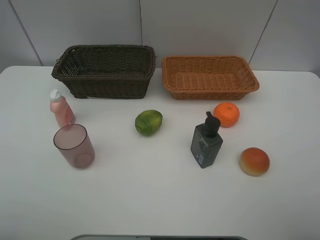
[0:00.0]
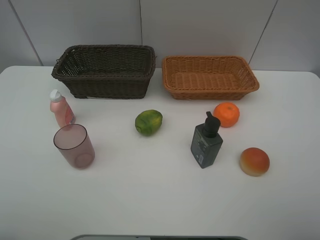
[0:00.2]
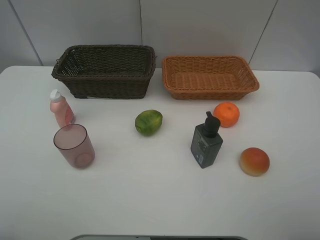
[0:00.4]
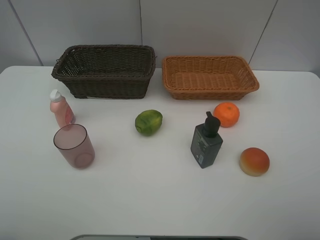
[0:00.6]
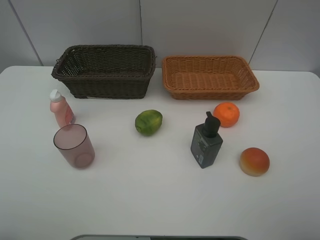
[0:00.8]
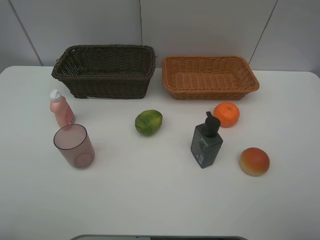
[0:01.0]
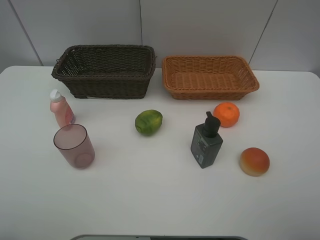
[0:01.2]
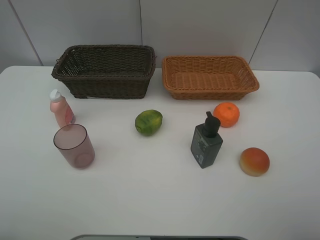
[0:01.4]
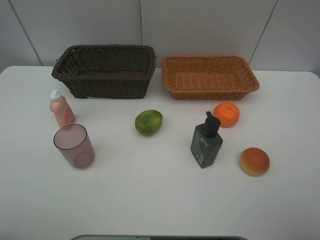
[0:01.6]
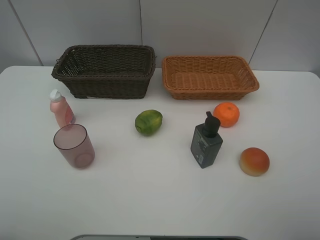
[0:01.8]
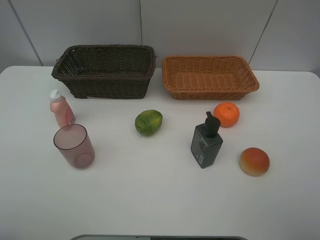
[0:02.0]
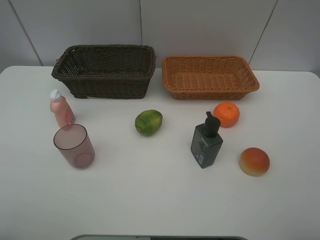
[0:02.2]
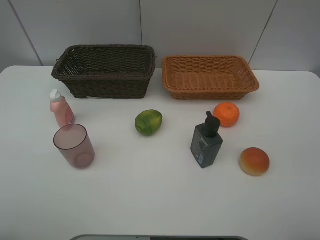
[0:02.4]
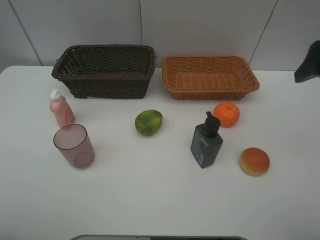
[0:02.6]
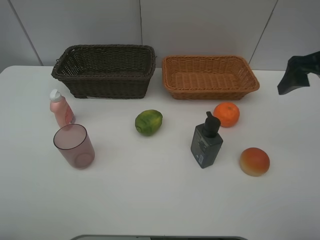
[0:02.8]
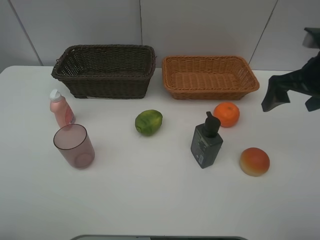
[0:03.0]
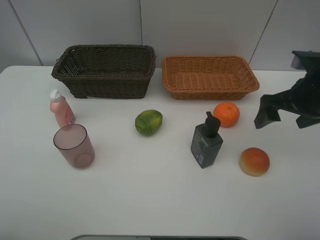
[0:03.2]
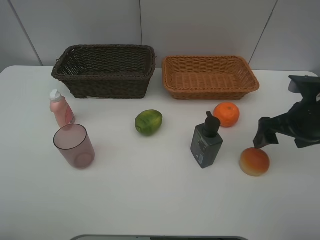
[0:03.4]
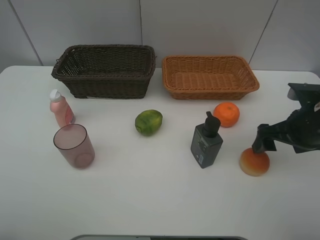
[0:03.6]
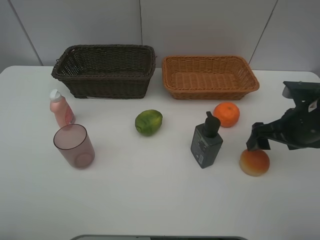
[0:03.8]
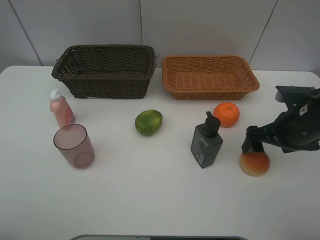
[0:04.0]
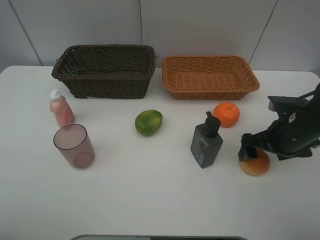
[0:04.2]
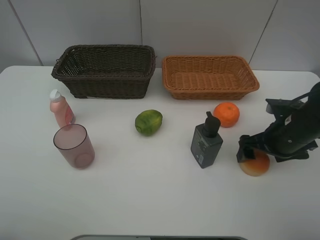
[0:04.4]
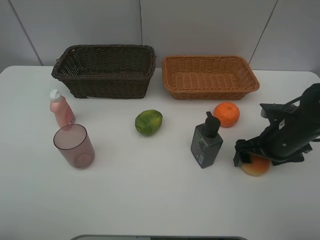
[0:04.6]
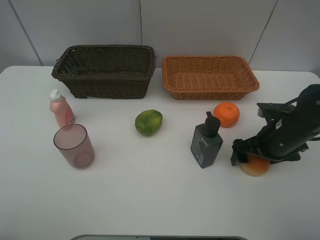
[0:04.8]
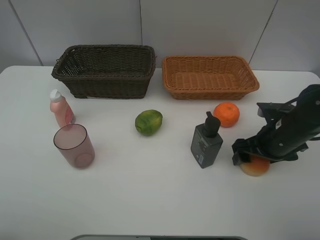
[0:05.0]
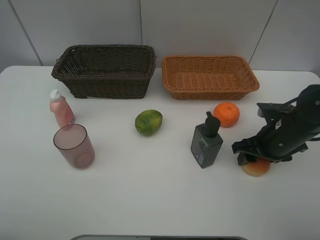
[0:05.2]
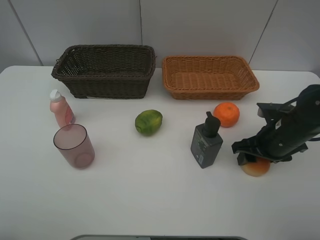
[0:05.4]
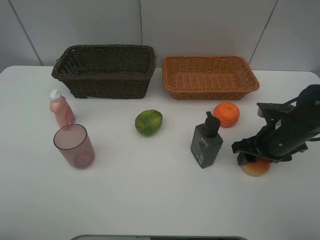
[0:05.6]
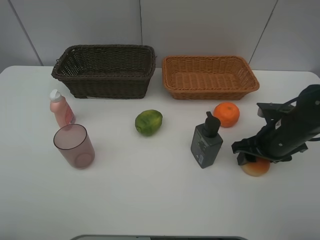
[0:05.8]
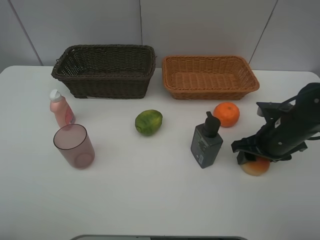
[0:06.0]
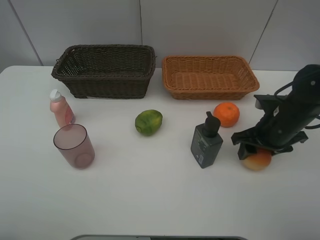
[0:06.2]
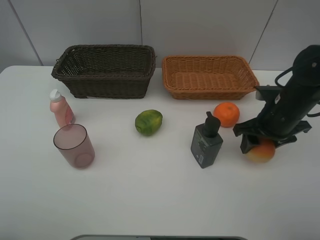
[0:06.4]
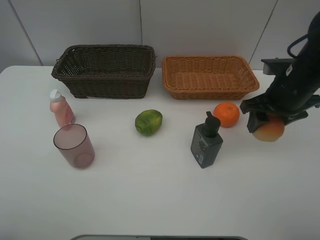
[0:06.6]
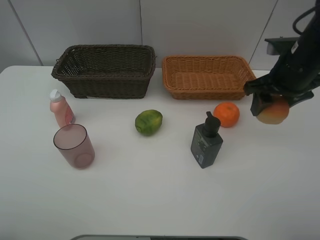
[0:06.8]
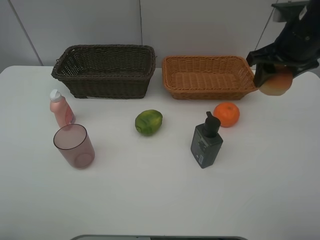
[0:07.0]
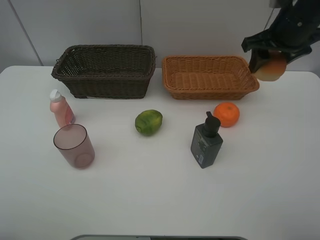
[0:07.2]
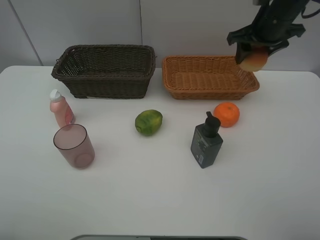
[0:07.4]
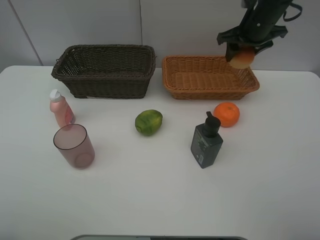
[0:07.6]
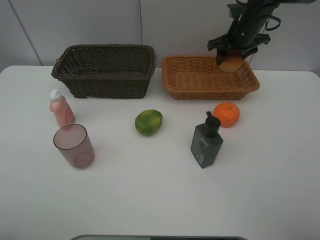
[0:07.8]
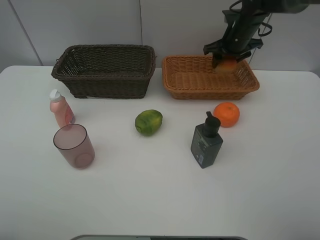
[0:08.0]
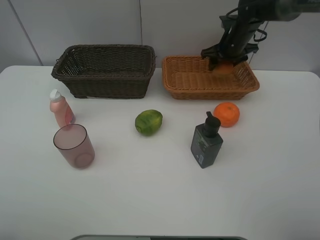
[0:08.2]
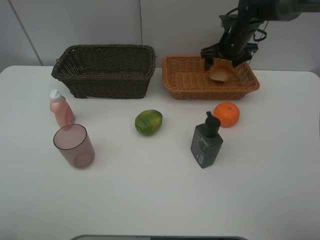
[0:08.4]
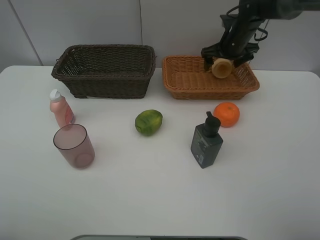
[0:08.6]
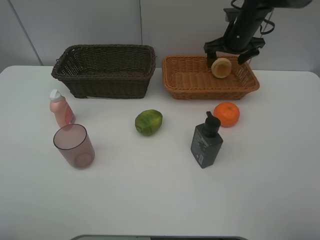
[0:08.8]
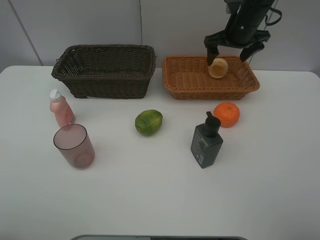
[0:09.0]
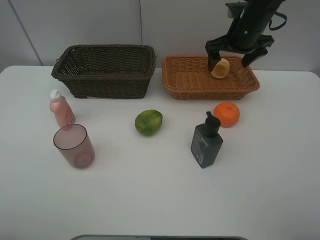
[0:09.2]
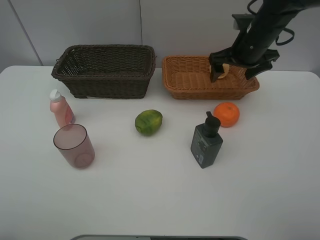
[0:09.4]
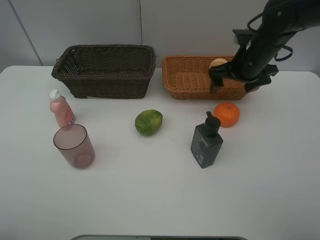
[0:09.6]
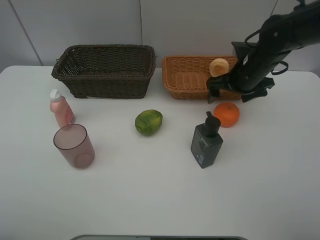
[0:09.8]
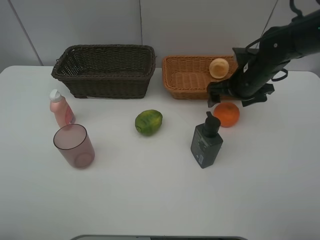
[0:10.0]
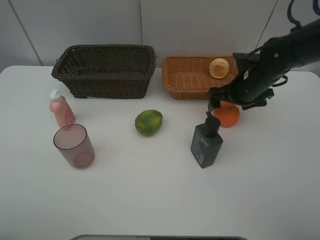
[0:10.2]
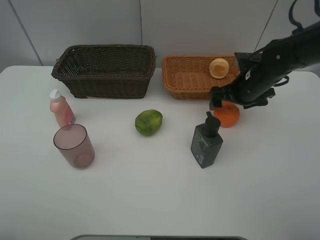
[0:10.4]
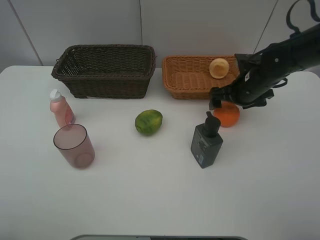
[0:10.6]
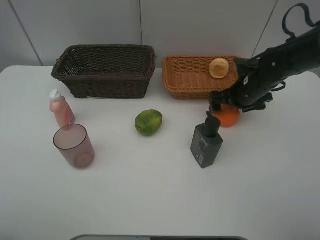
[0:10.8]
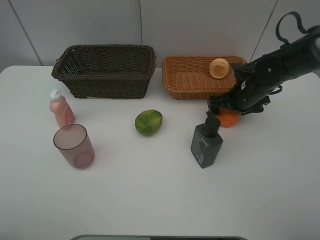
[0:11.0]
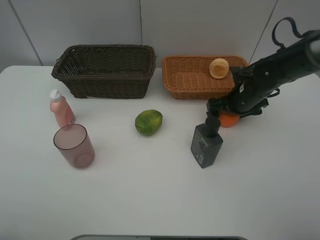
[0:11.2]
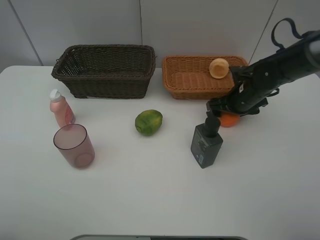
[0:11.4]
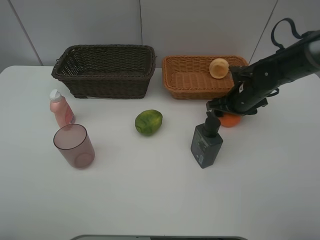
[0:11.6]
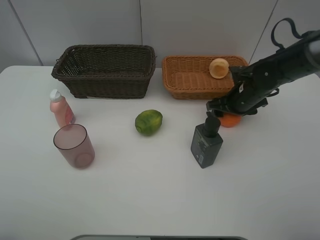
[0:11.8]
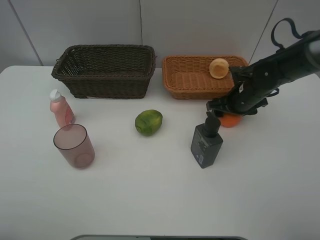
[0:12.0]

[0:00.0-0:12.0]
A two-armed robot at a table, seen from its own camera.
Task of the whole recording: place multiple objects separately in different baskets.
0:00.0 to 0:01.6: Neither gripper changes place.
0:01.6 to 0:03.0: The right gripper is displaced forward by about 25 cm.
0:03.0 to 0:04.4: The right gripper heads downward, covering some 15 cm.
0:04.4 to 0:06.0: The right gripper closes its fingers.
0:06.0 to 0:07.6: The right gripper travels forward and upward by roughly 25 cm.
0:07.6 to 0:09.0: The right gripper opens up.
0:09.0 to 0:10.4: The right gripper goes approximately 15 cm backward and downward.
0:10.4 to 0:12.0: The right gripper closes.

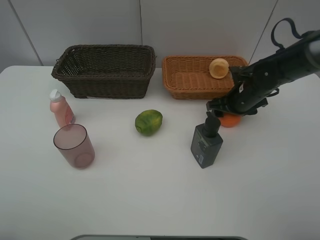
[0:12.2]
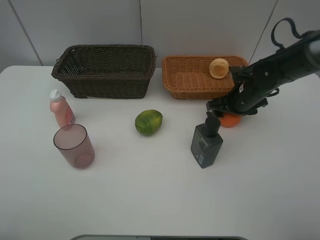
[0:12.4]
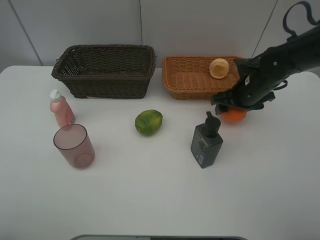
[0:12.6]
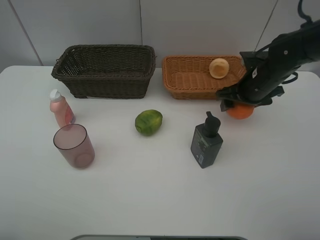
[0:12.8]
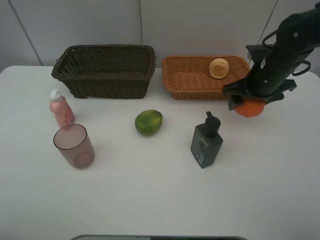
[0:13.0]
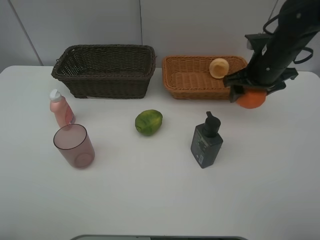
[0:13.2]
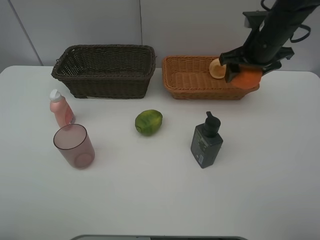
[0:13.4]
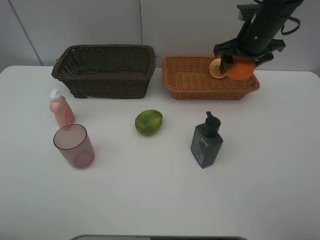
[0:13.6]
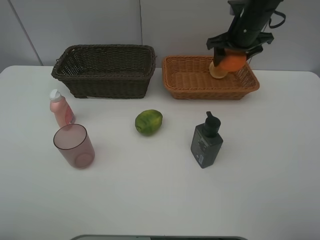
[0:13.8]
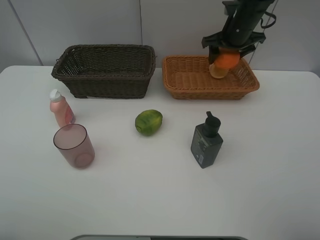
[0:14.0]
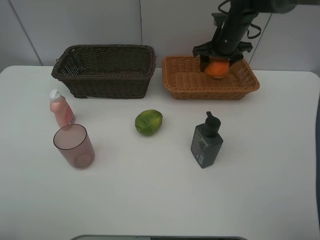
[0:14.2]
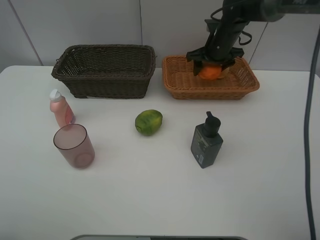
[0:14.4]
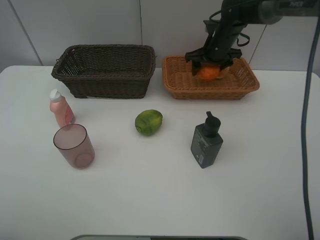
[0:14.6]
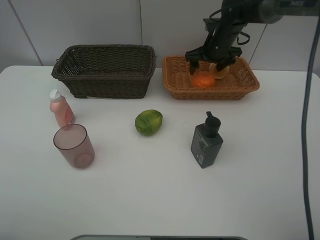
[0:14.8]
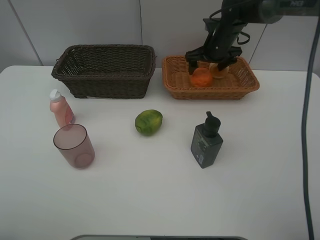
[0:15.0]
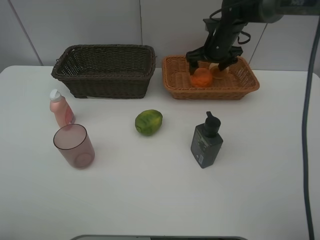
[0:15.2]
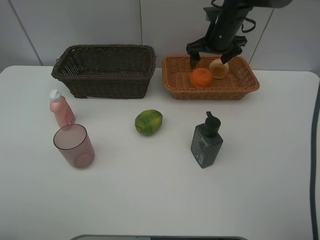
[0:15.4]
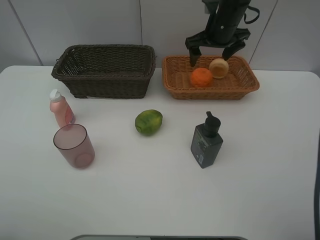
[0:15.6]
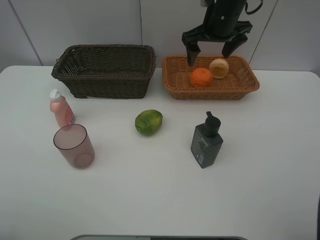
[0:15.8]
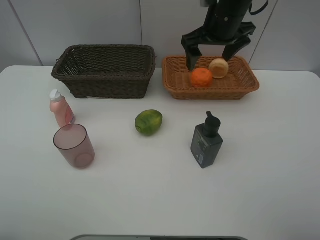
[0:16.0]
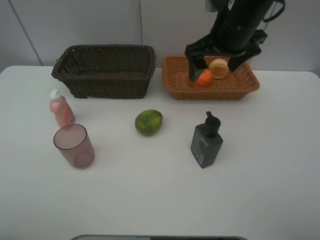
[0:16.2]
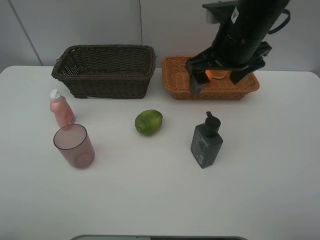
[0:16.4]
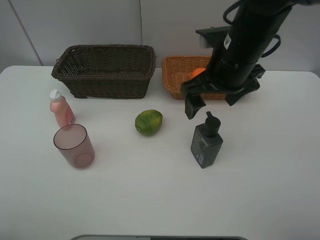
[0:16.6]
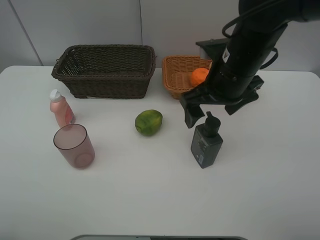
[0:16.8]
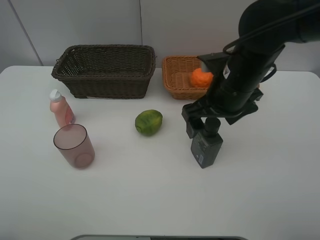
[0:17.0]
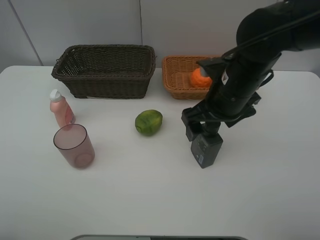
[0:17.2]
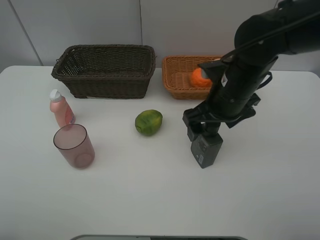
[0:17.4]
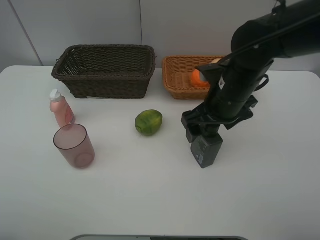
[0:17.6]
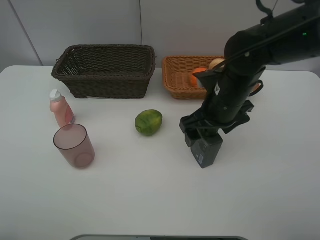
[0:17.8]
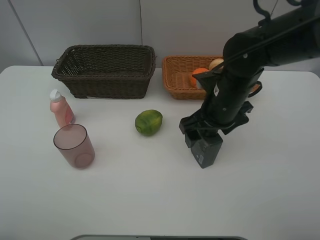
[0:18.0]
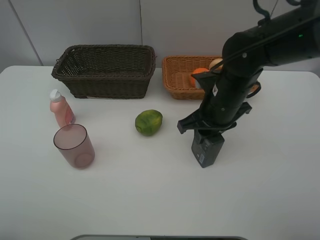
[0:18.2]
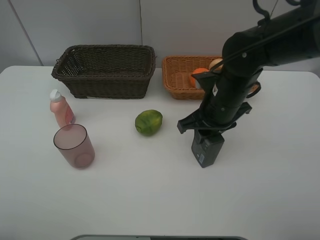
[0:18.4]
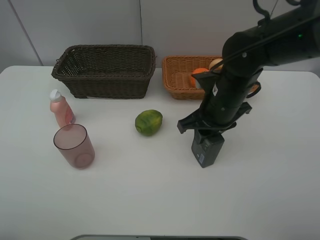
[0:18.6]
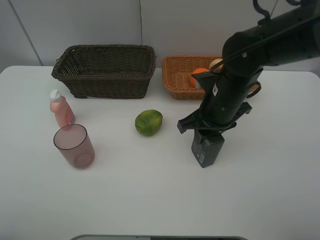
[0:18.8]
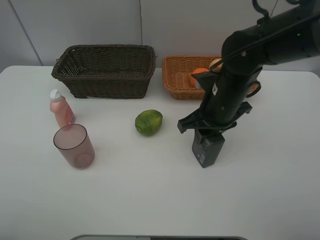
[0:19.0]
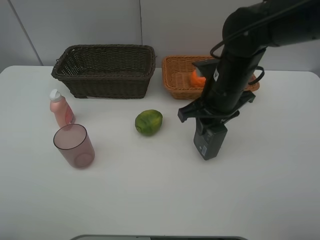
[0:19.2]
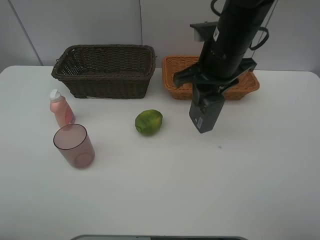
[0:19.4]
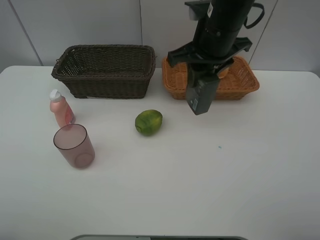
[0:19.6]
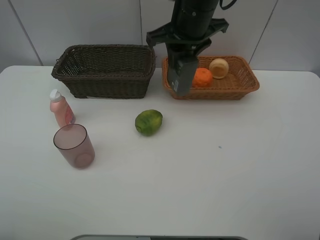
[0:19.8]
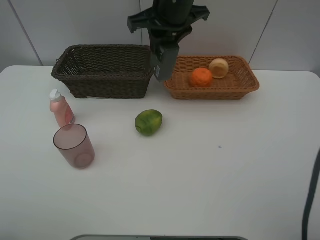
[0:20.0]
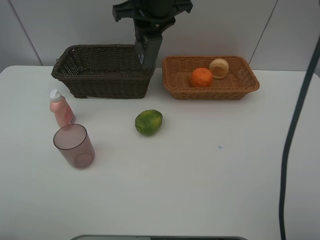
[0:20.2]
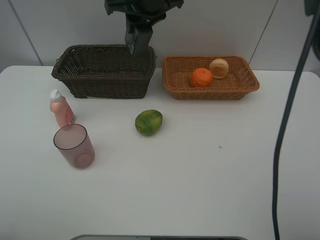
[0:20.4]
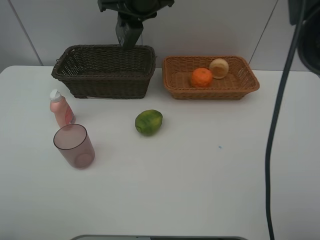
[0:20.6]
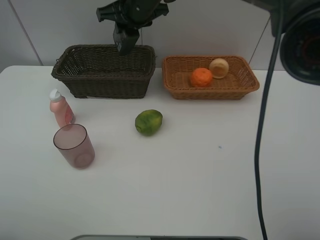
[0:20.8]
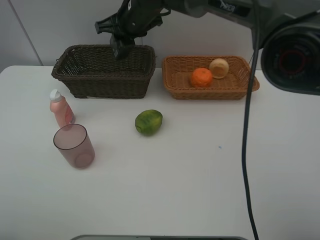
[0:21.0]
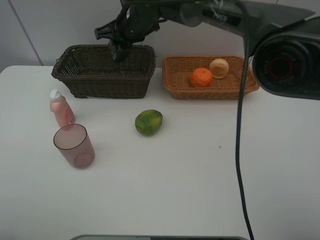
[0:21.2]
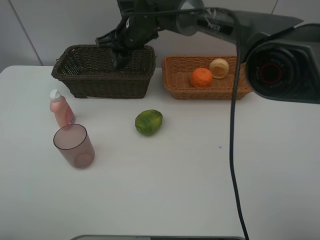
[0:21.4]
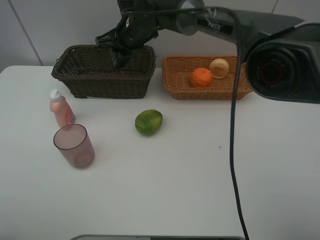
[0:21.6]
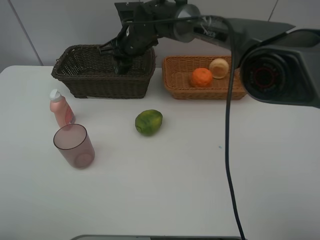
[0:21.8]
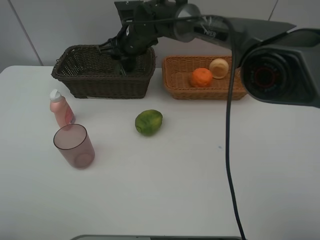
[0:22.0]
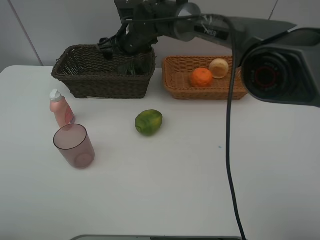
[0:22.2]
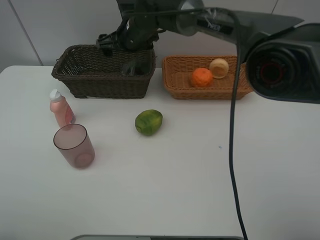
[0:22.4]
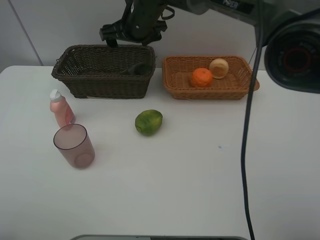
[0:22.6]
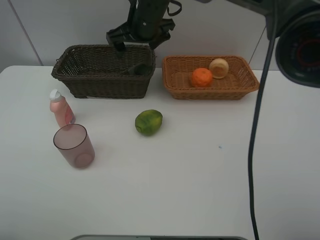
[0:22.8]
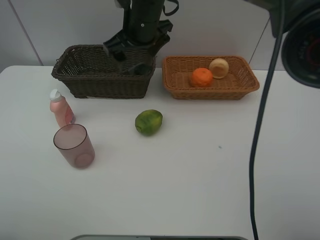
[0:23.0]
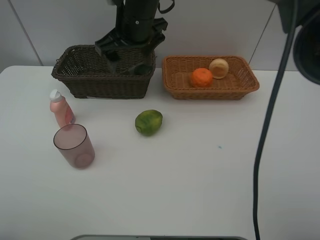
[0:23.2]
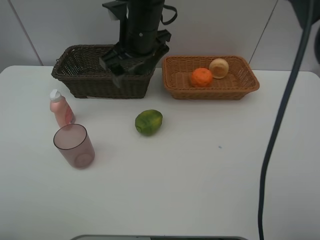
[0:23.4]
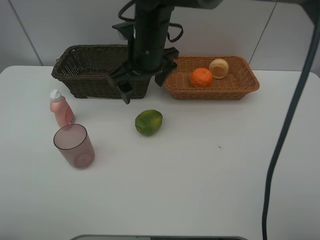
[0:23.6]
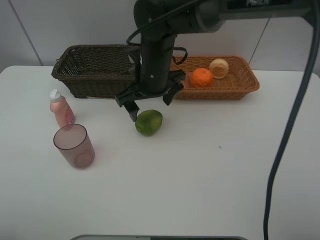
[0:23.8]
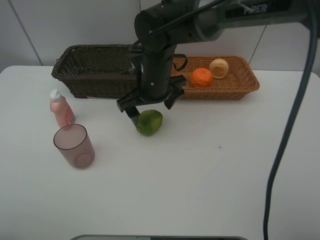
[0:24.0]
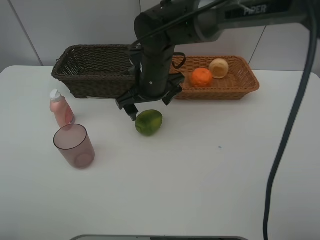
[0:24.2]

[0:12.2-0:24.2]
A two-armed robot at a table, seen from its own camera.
Task of the whole recording: place multiple objects separately in different baskets.
0:12.2 to 0:13.8: The right gripper shifts roughly 15 cm upward and forward.
0:13.8 to 0:15.2: The right gripper is displaced downward by some 5 cm, and opens its fingers.
0:15.2 to 0:16.6: The right gripper moves backward, about 20 cm.
0:16.6 to 0:18.2: The right gripper travels downward by about 10 cm, and closes its fingers.
0:18.2 to 0:19.8: The right gripper shifts some 15 cm upward, forward and to the left.
0:19.8 to 0:21.2: The right gripper moves to the left, forward and downward, roughly 15 cm.
0:21.2 to 0:22.6: The right gripper opens.
0:22.6 to 0:24.2: The right gripper goes some 10 cm backward and downward.
